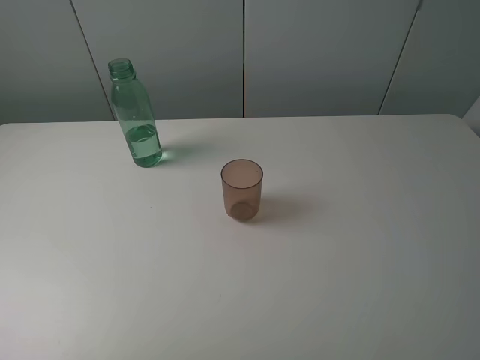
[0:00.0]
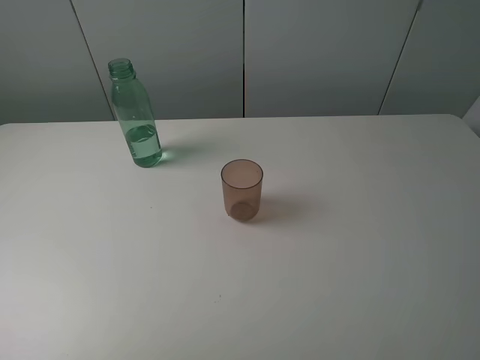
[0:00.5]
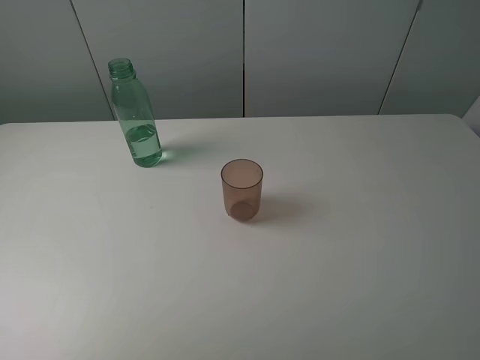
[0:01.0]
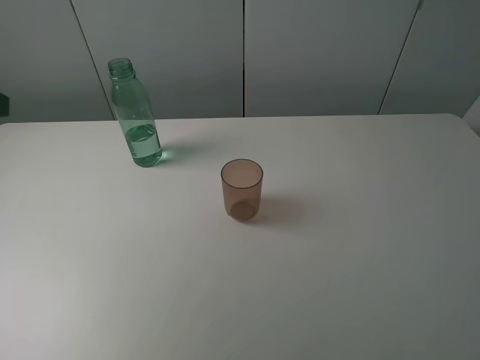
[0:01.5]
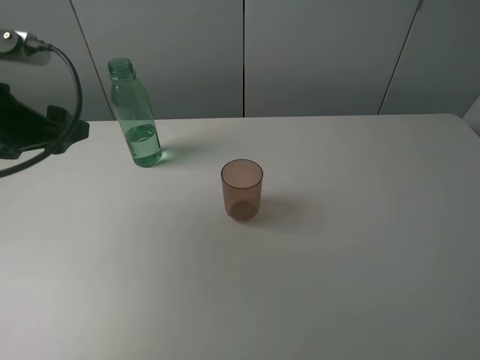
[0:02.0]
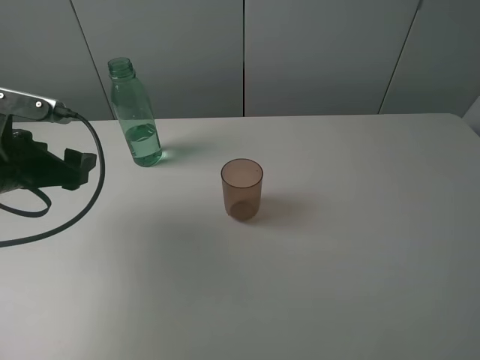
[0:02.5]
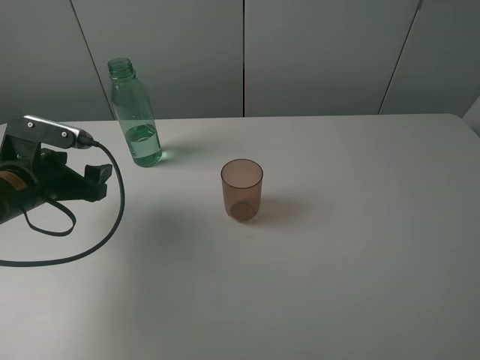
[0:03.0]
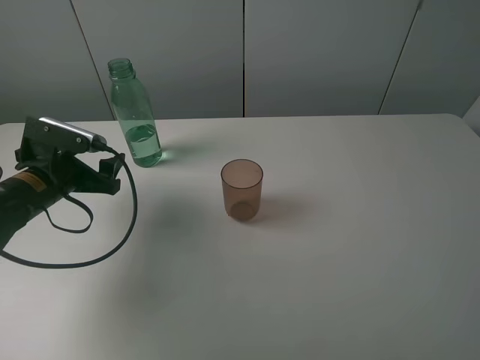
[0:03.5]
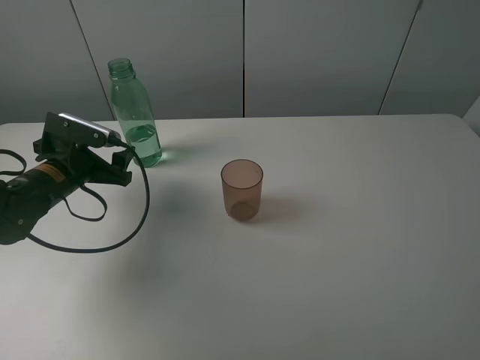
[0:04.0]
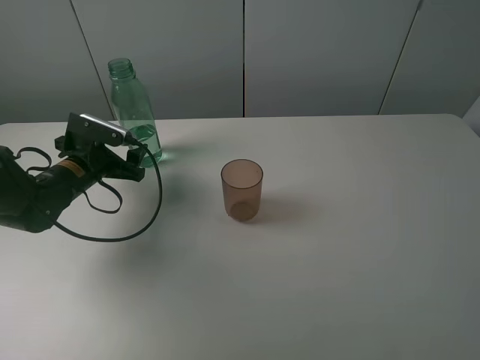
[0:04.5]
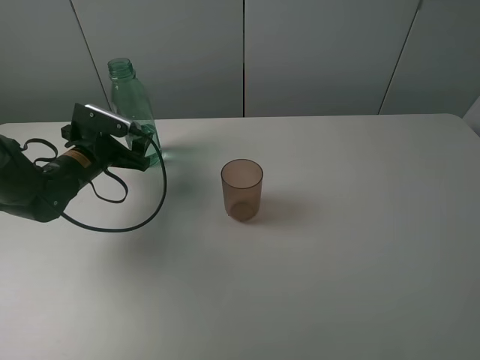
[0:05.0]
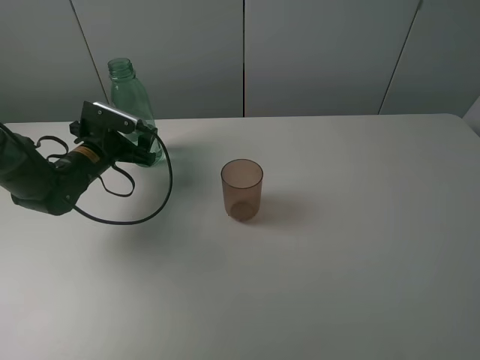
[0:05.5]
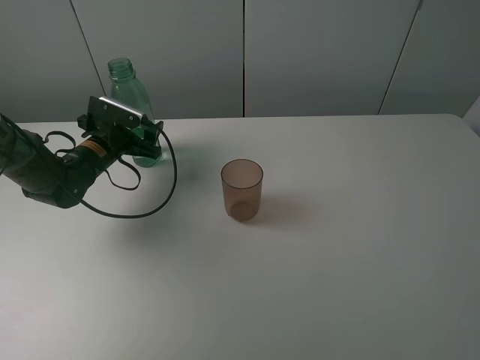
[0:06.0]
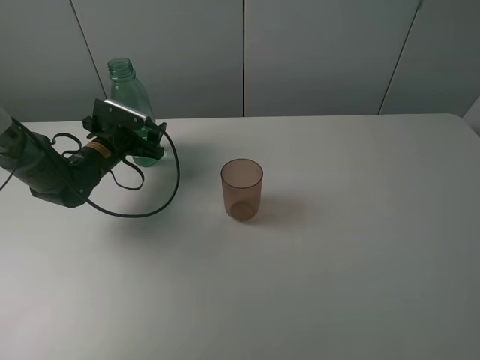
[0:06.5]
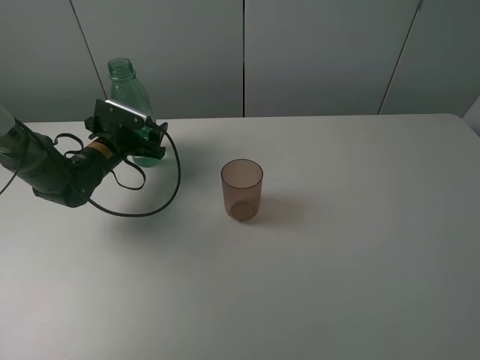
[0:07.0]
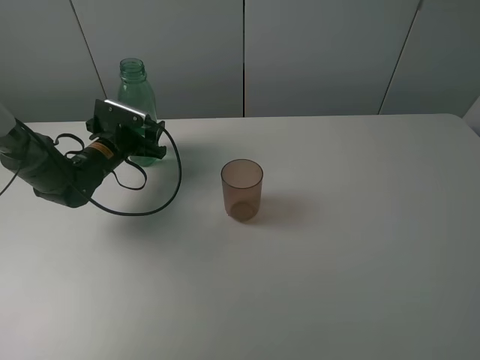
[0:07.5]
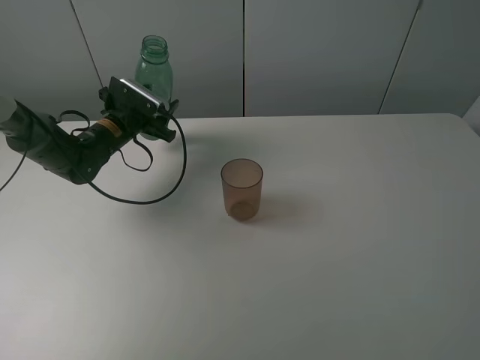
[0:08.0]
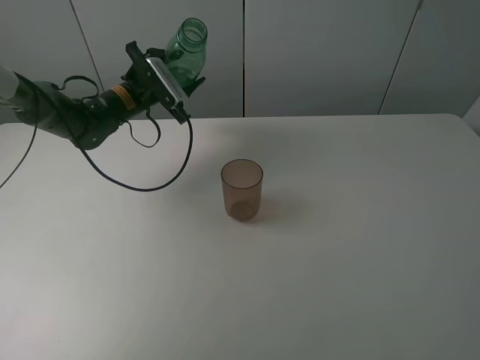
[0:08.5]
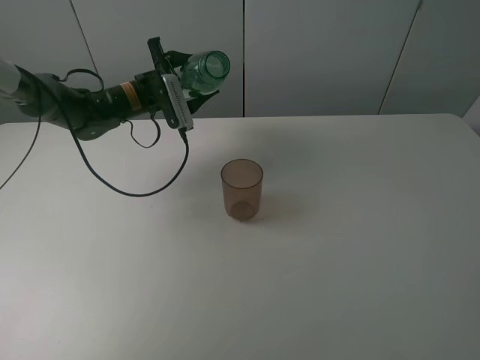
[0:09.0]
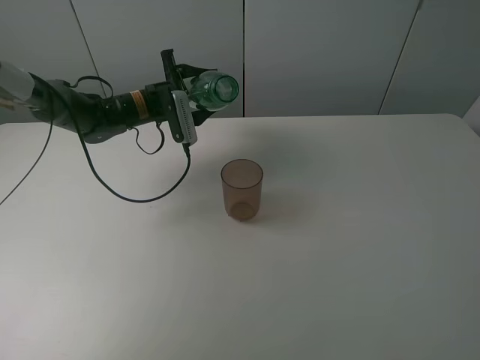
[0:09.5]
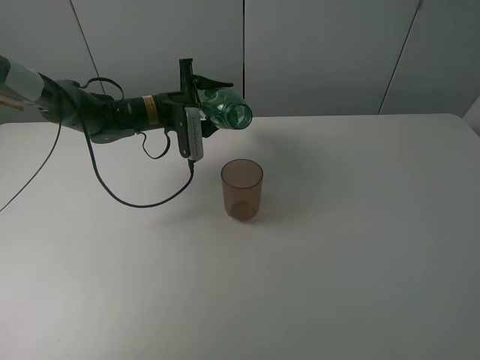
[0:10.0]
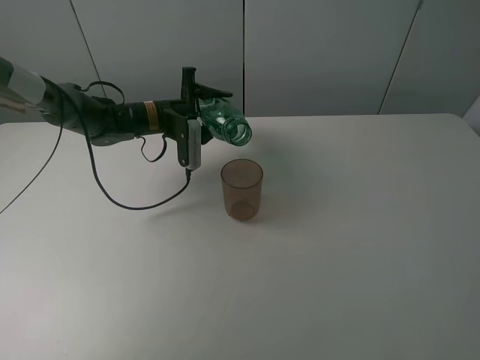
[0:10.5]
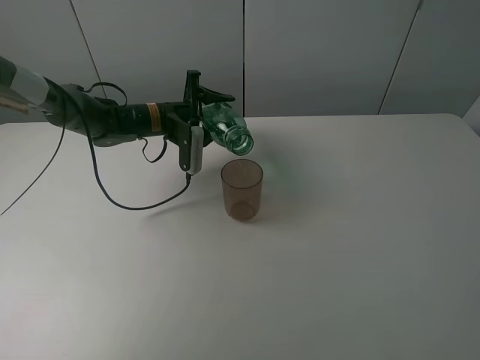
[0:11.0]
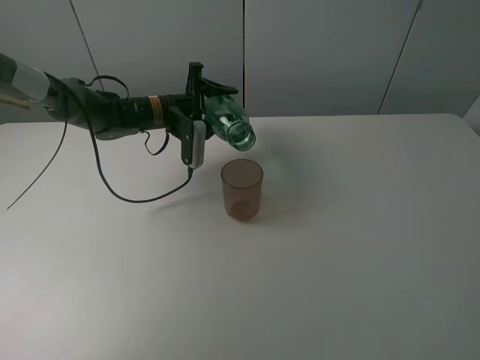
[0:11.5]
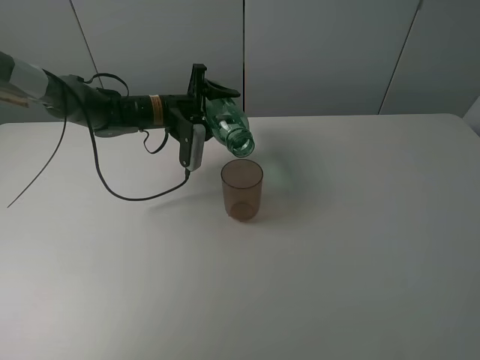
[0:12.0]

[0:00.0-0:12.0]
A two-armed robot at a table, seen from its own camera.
Task of the whole recording: pick up the bottle filled with water and pour it into the pink cup.
Step, 0:00.0 to 0:07.5: Grasp the green bottle with the left gripper.
0:00.0 to 0:02.0: The left gripper shifts some 25 cm forward.
0:02.0 to 0:04.0: The left gripper shifts approximately 15 cm downward and forward.
0:04.0 to 0:06.0: The left gripper is displaced forward by roughly 10 cm.
0:06.0 to 0:08.0: The left gripper ends up about 5 cm from where it was, and closes.
0:08.0 to 0:10.0: The left gripper travels to the right by approximately 10 cm.
0:10.0 to 0:12.0: The grippers stay close to where they were, moving slightly.

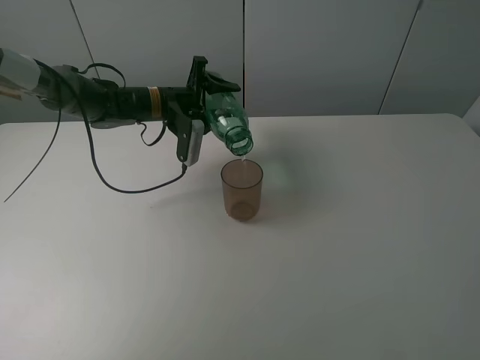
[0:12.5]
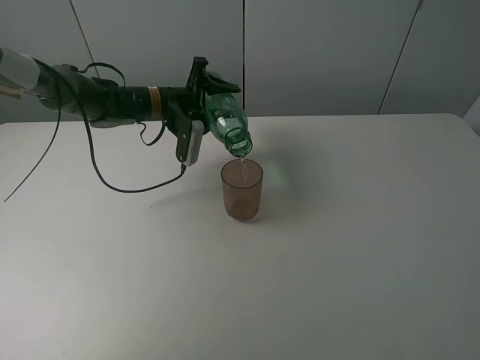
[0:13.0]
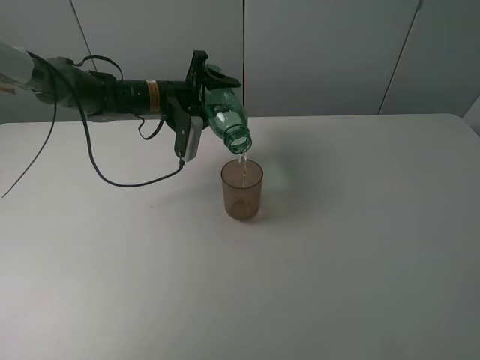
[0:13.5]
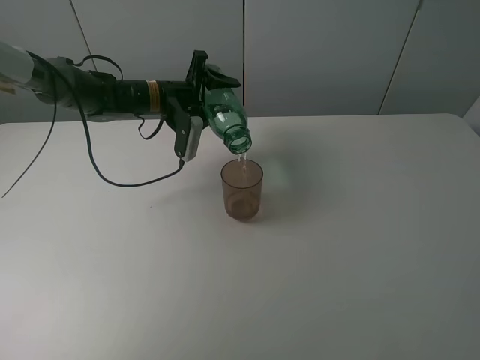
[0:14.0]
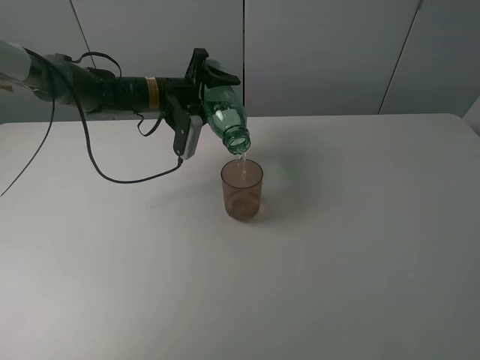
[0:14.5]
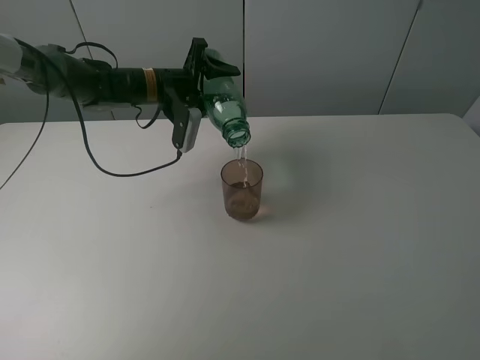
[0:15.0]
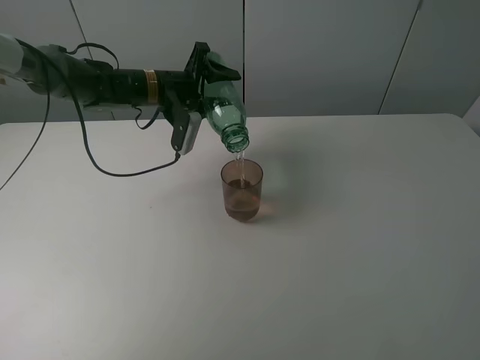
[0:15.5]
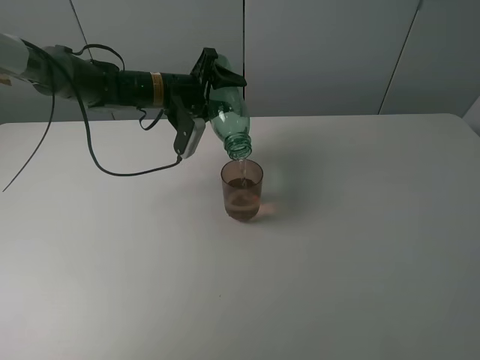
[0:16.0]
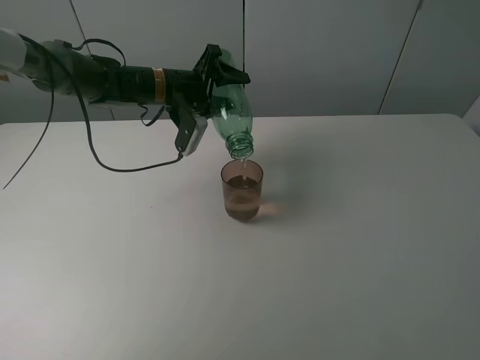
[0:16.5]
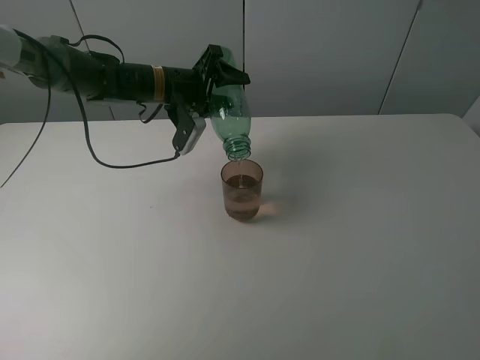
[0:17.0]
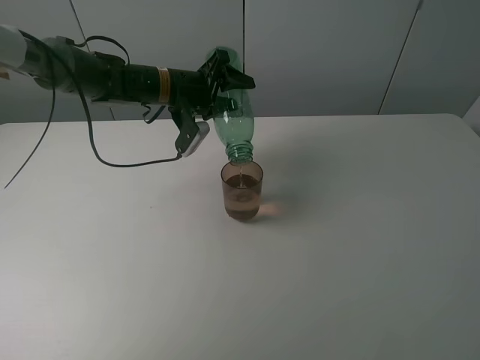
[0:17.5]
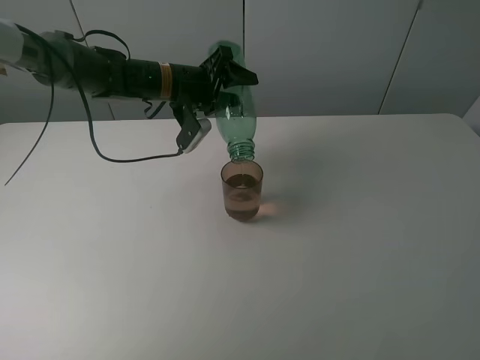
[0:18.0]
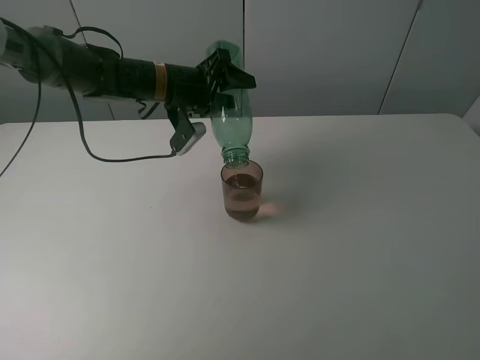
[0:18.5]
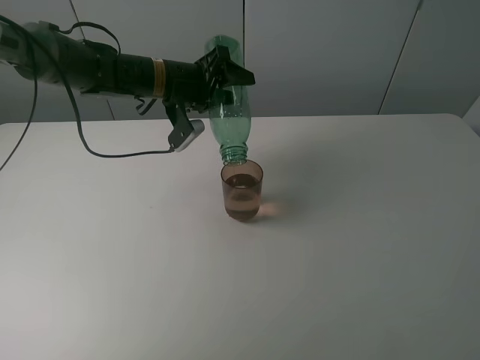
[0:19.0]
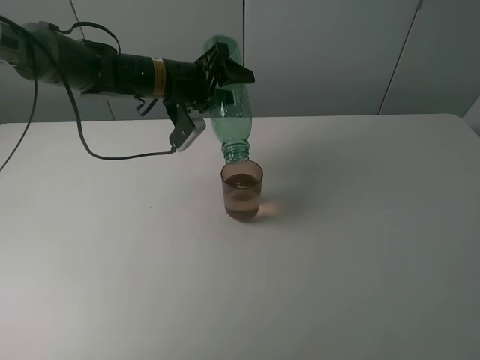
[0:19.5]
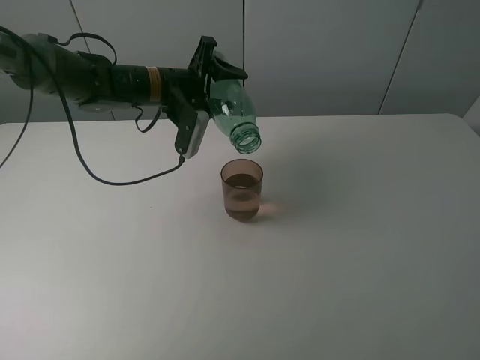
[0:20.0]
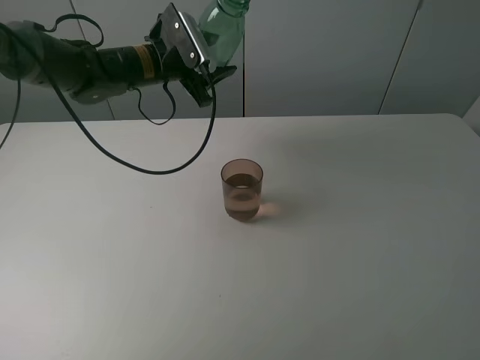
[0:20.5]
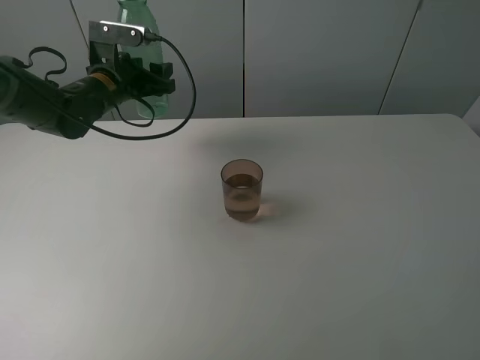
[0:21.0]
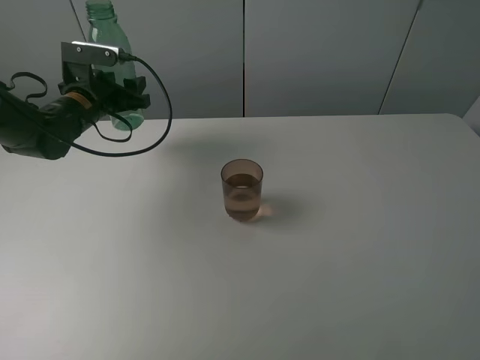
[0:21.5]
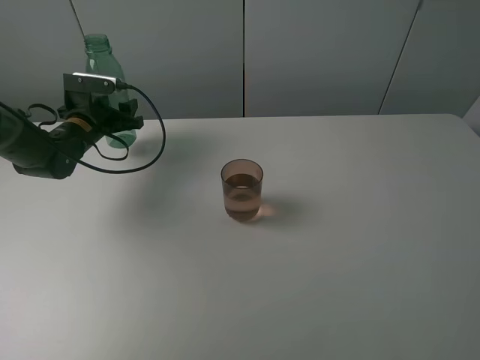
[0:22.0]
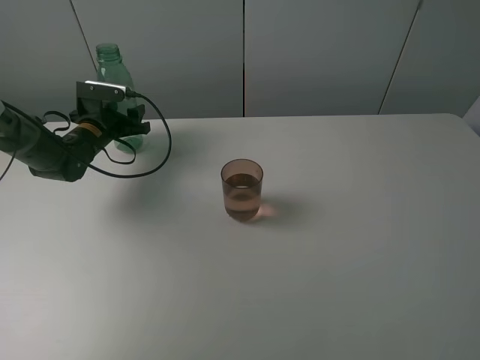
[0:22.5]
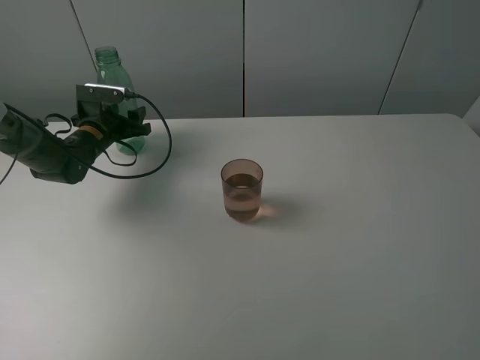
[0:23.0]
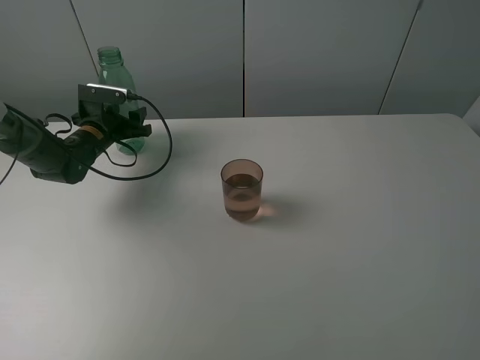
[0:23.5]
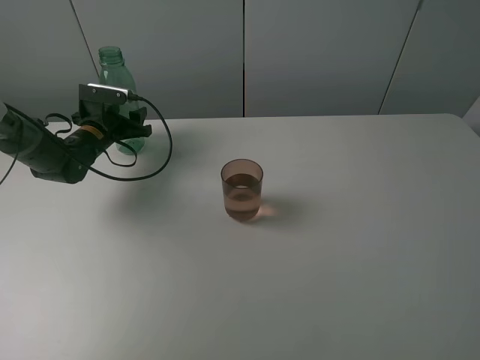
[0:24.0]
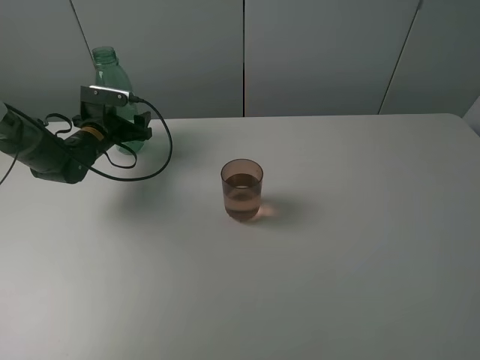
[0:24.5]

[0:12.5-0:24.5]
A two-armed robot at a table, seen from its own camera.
Task of the whole recording: pick up the bottle filled with water and pour it into the pink cup.
Step, 0:12.5 to 0:19.5: Pour water from green bottle to pink cup with the left gripper.
0:12.5 to 0:16.5: The grippers move only a little.
0:16.5 to 0:18.5: The grippers make only small movements.
0:20.5 to 0:22.5: The left gripper moves downward and to the left, about 20 cm.
0:22.5 to 0:24.5: The left gripper opens.

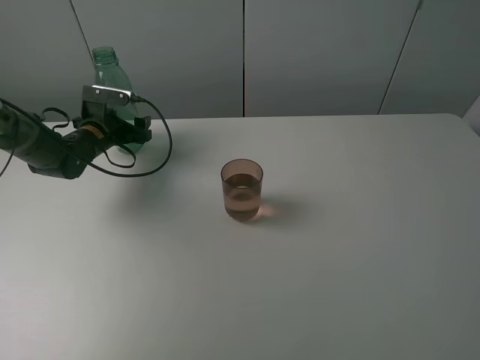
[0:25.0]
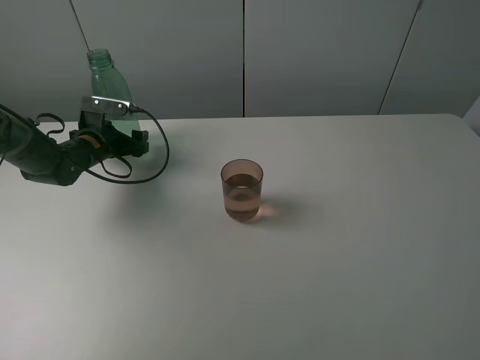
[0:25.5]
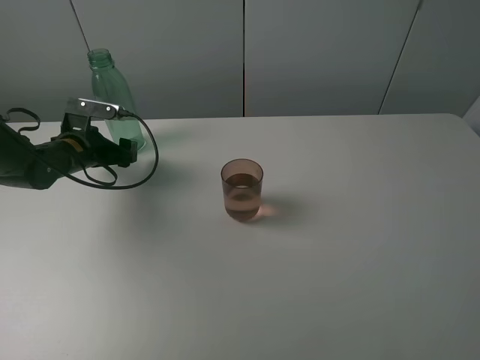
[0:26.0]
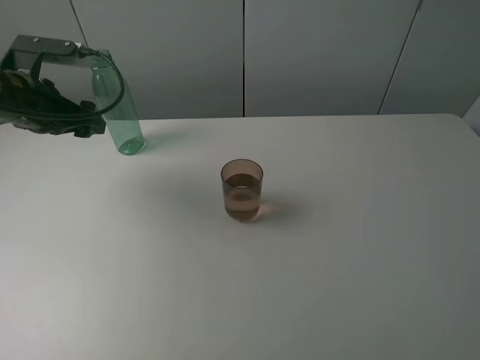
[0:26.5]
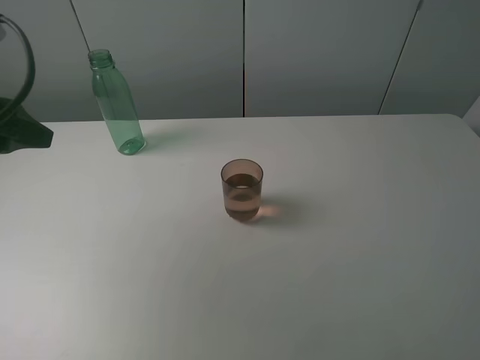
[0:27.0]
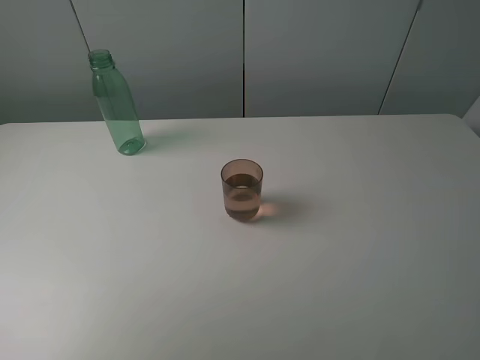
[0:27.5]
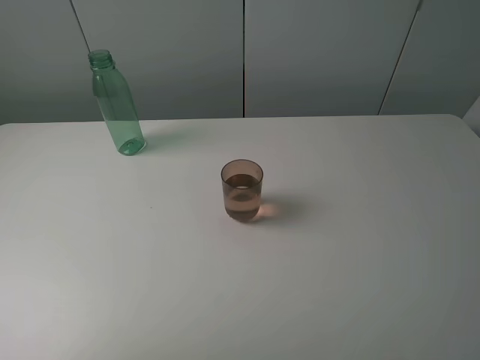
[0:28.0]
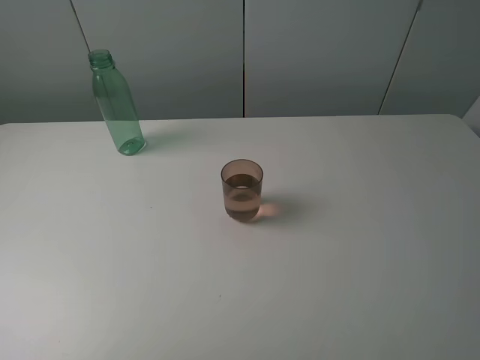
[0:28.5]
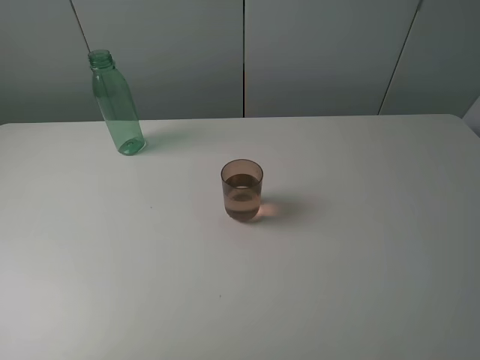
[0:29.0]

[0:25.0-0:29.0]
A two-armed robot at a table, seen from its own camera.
Task of the whole recording: pick up the bottle filled with water and pour it into the pink cup.
0:25.0 to 0:27.0: The left gripper moves backward and upward, about 35 cm.
0:27.0 to 0:29.0: The left gripper shifts about 20 cm backward.
